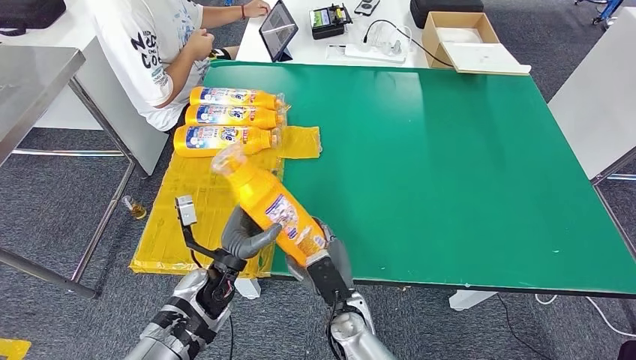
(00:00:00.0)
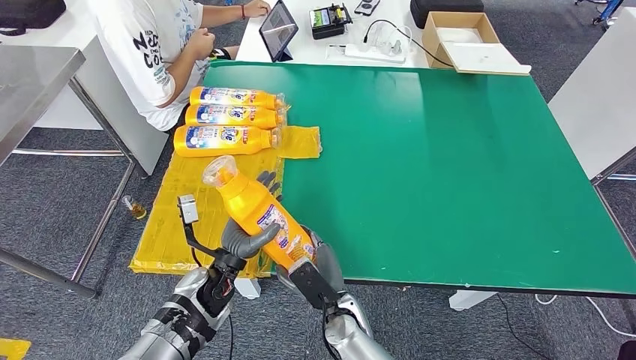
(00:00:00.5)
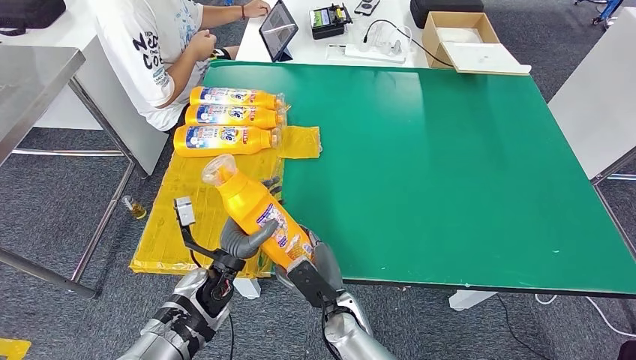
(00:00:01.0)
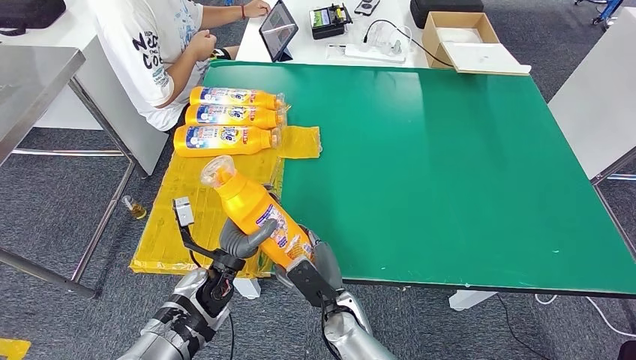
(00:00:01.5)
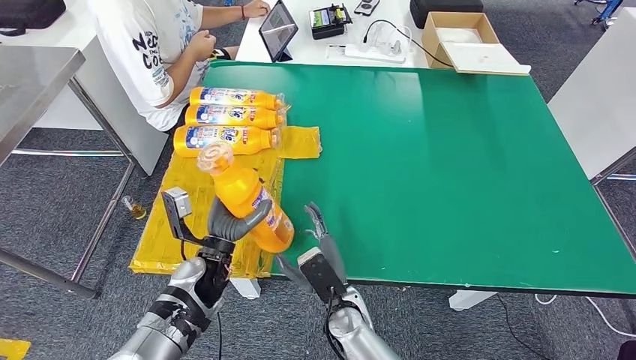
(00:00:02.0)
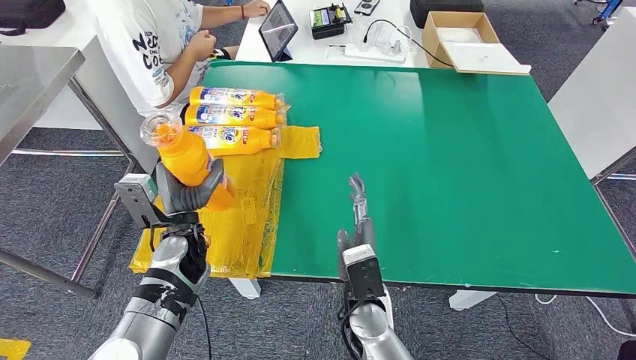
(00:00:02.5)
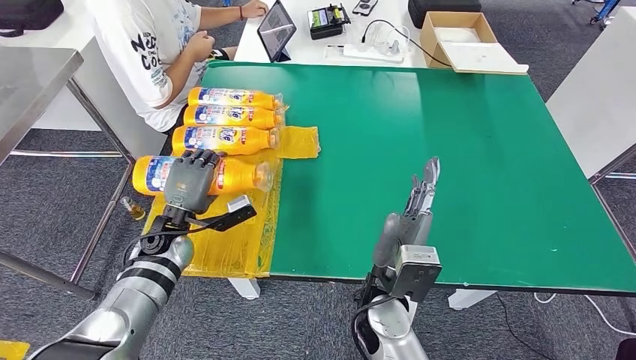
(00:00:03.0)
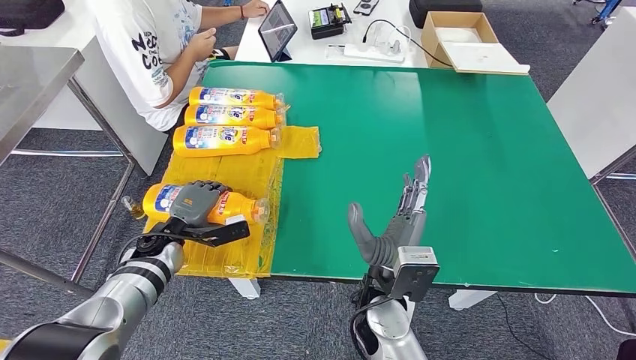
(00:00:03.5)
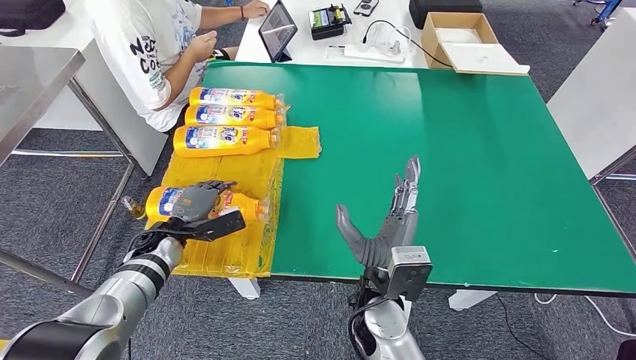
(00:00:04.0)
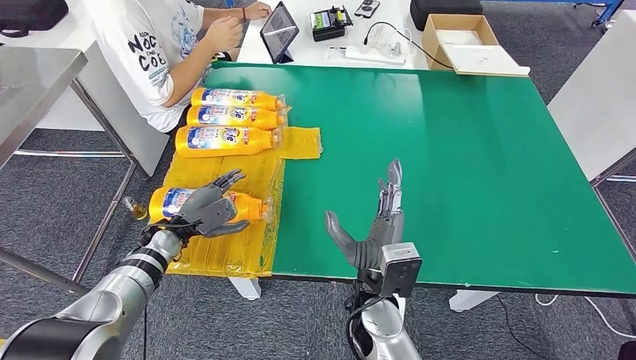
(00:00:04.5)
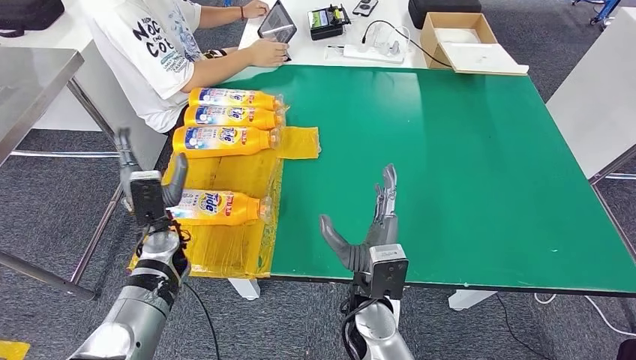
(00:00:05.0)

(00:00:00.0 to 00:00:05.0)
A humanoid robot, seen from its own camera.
Step, 00:00:00.0 - 00:00:05.0: Flip the fast-moving consumer goods bottle to the front side.
00:00:00.0 - 00:00:02.5: The right hand is displaced upward by about 5 cm. The left hand goes approximately 10 cm to the left and forward.
